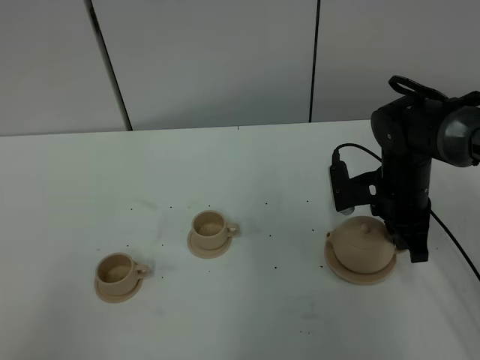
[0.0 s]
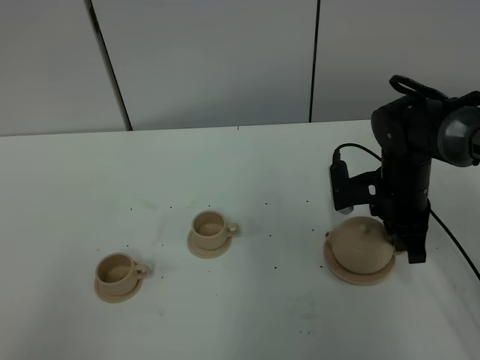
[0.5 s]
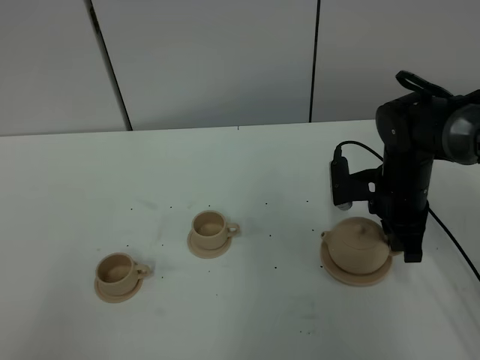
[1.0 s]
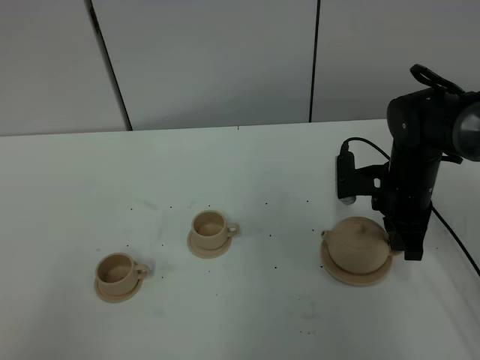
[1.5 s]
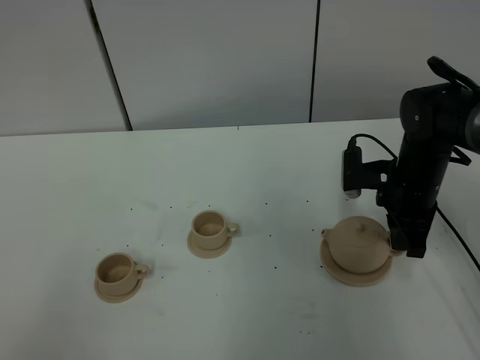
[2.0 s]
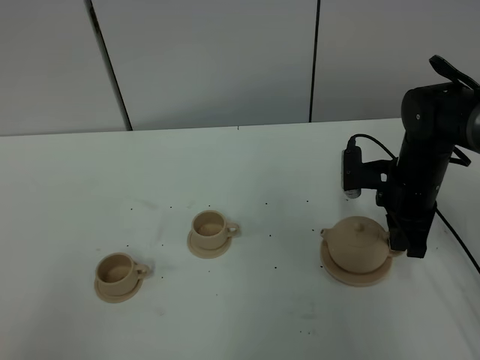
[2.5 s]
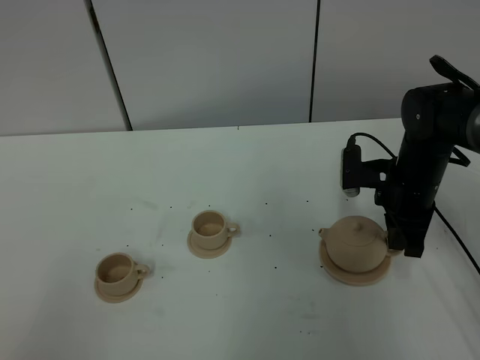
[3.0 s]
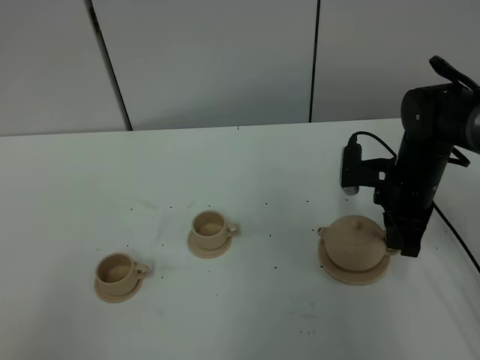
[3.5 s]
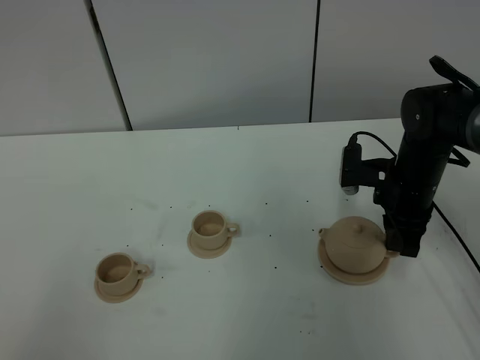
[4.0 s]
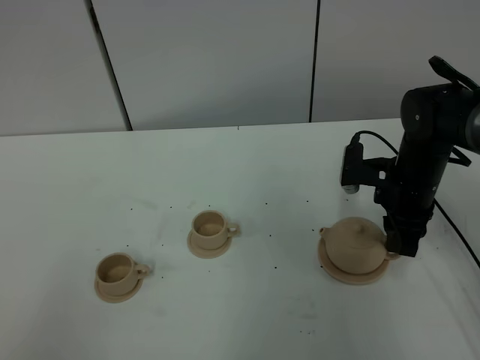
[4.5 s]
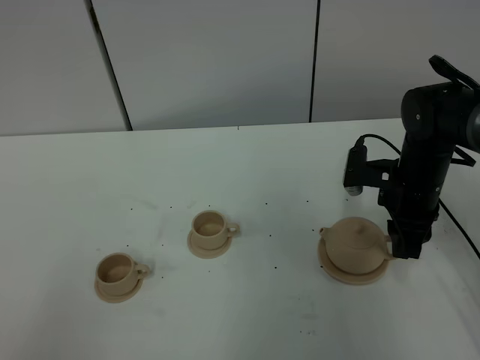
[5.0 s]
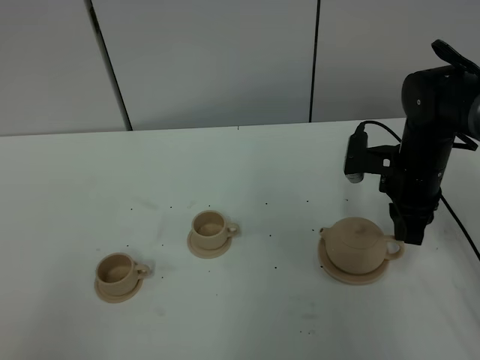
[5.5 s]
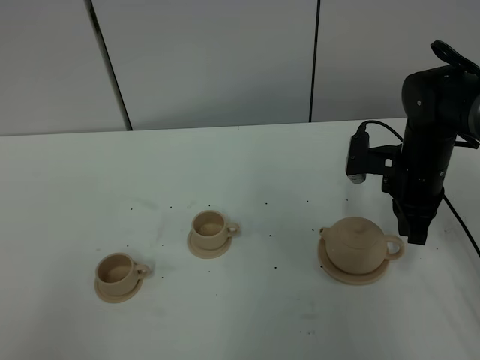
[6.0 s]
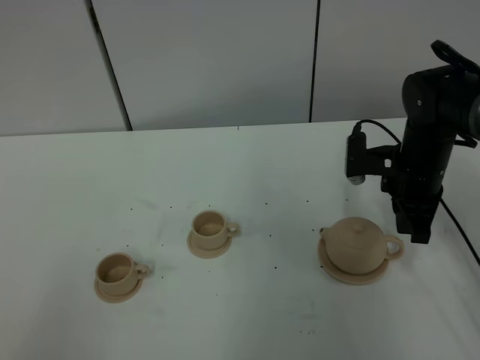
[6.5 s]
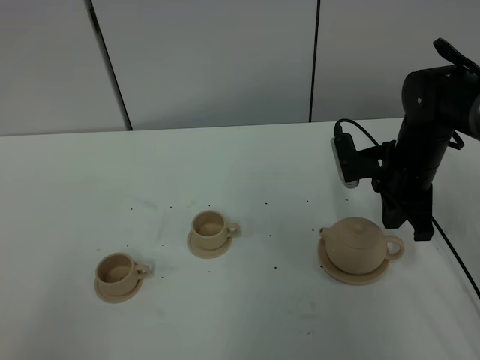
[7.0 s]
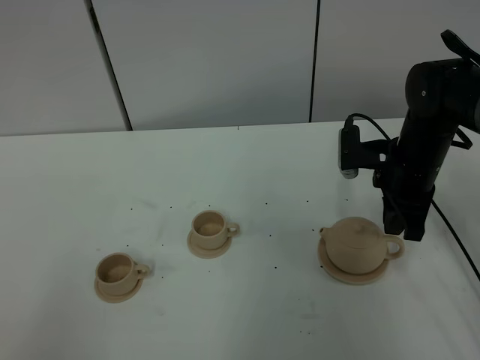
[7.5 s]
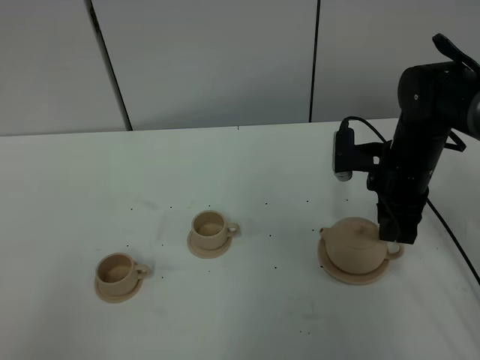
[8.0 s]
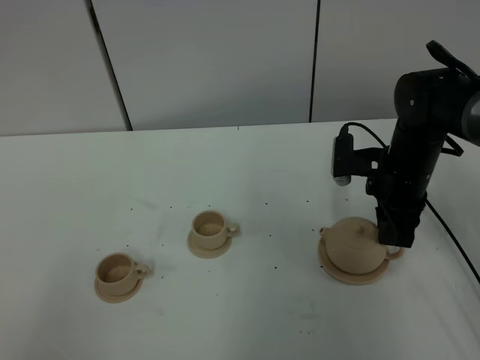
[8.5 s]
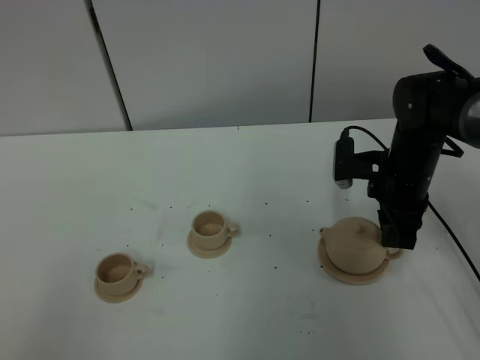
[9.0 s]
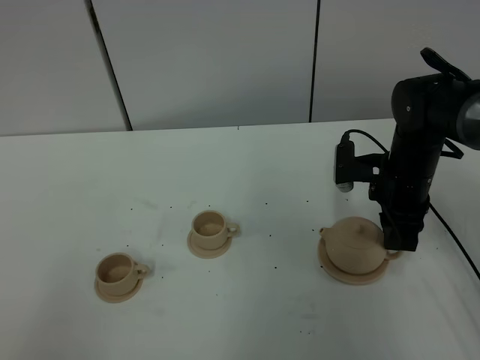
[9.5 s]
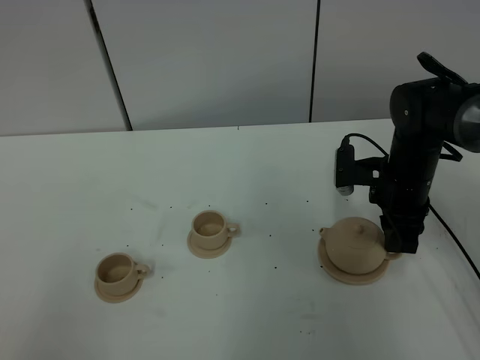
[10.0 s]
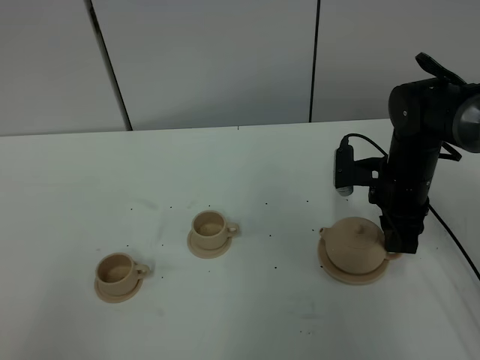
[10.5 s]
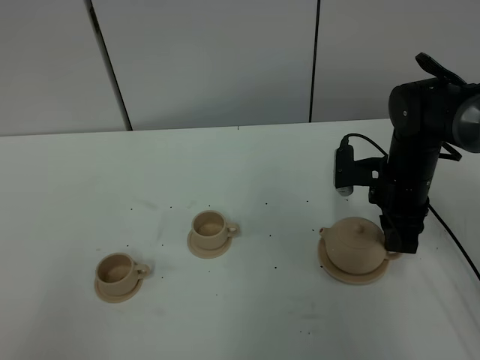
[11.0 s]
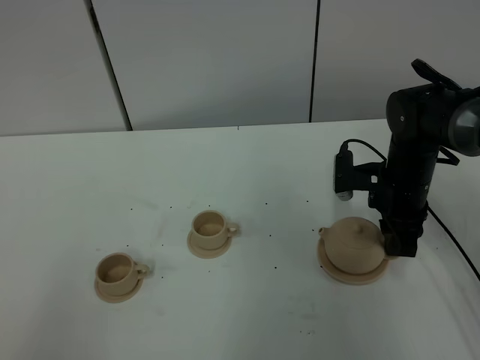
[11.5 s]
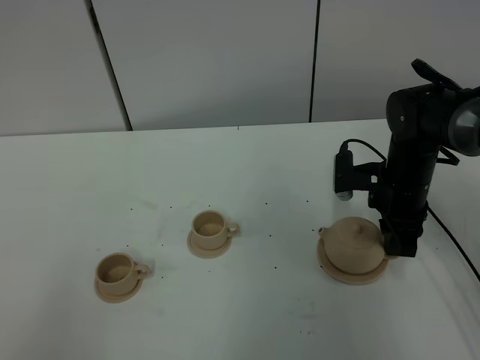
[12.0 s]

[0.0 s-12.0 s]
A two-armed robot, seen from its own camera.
Task of the whole recording: grasp the brown teapot and pour the tea into the two brown teacups one by one, put the brown teapot back in its original place.
0.0 to 2.0 s: The grippers make only small movements.
2.0 to 4.0 s: Both grippers stay about where they are.
4.0 to 6.0 s: The grippers move only a little.
6.0 to 8.0 s: The right gripper opens its fingers.
8.0 to 10.0 s: There are only small adjustments of the grippers.
10.0 to 12.0 s: Both grippers stay put.

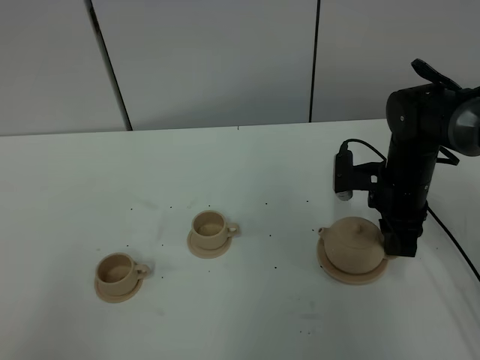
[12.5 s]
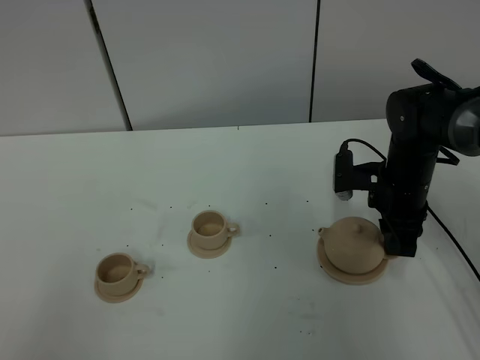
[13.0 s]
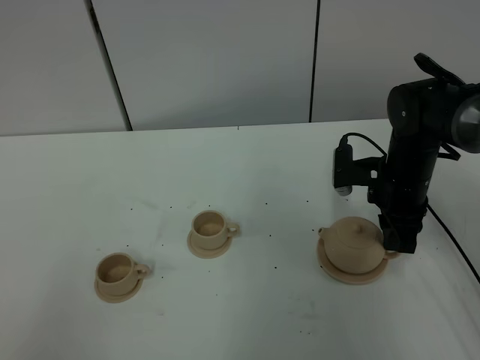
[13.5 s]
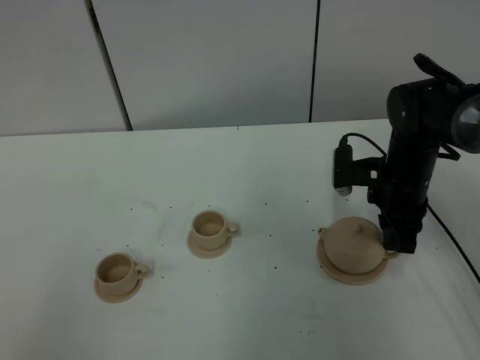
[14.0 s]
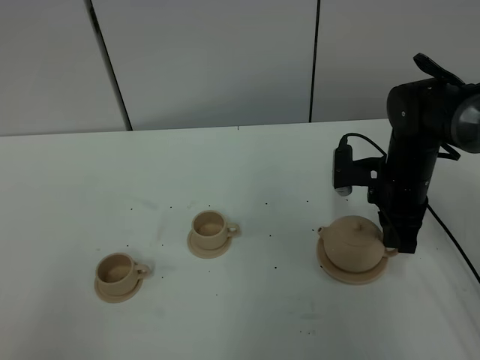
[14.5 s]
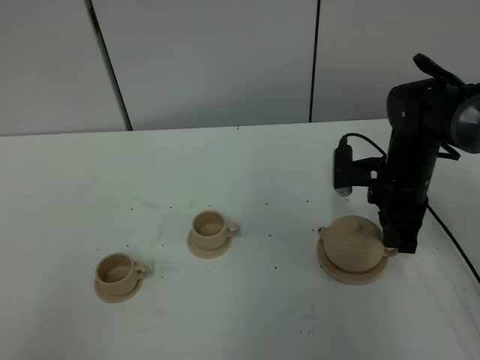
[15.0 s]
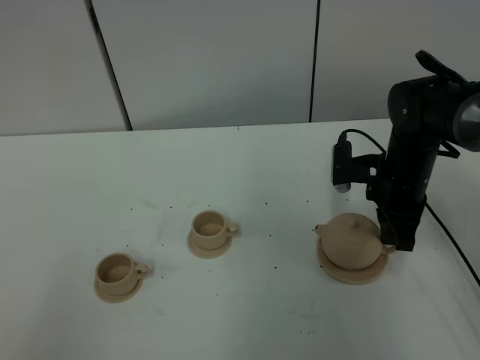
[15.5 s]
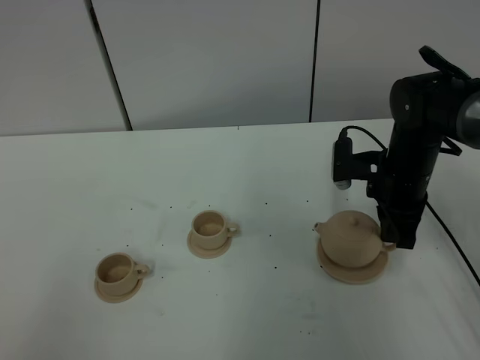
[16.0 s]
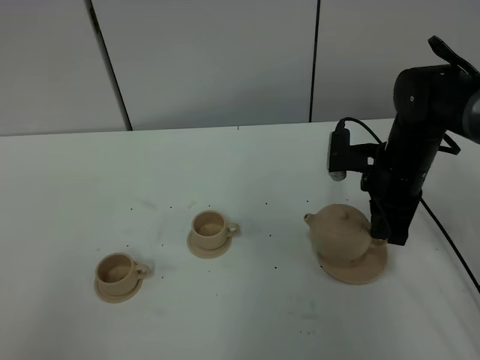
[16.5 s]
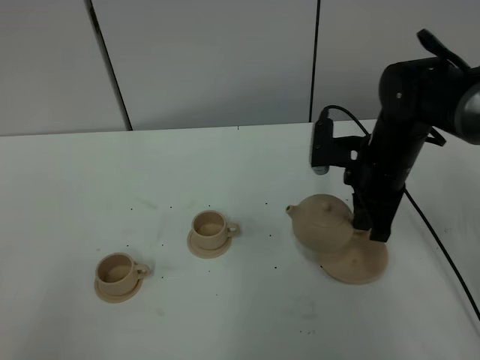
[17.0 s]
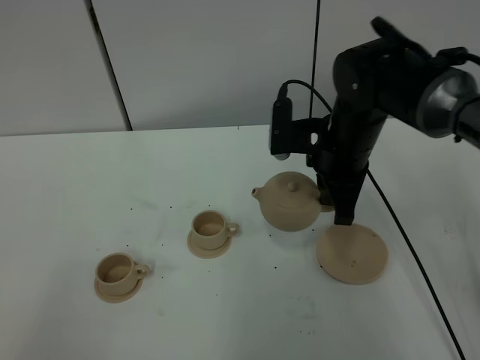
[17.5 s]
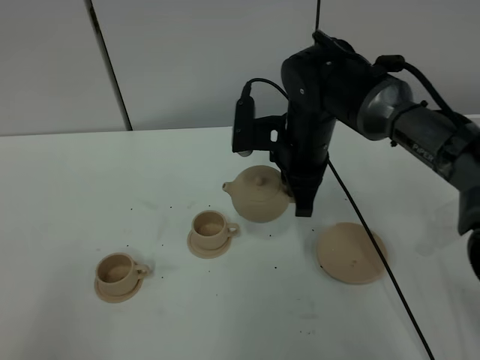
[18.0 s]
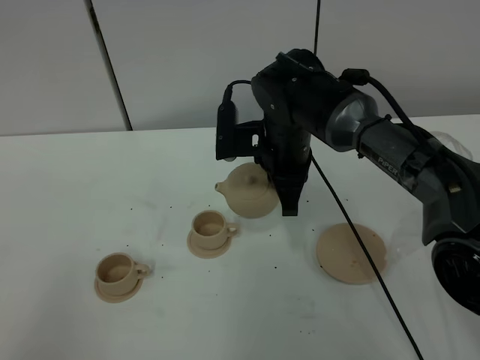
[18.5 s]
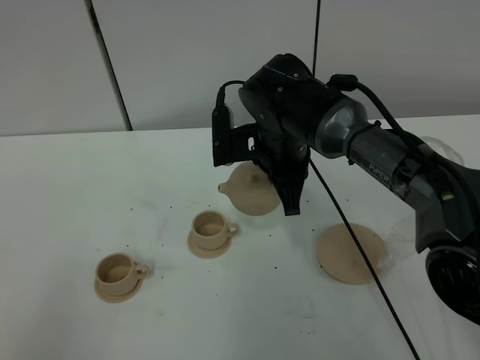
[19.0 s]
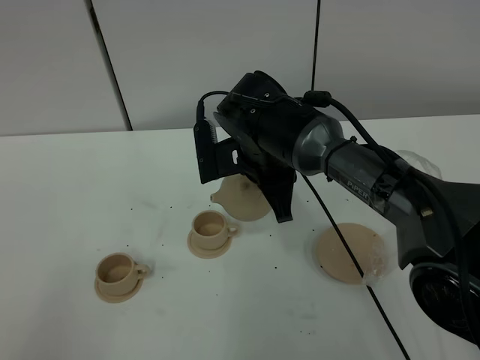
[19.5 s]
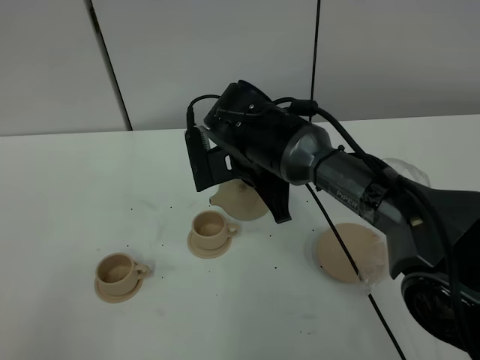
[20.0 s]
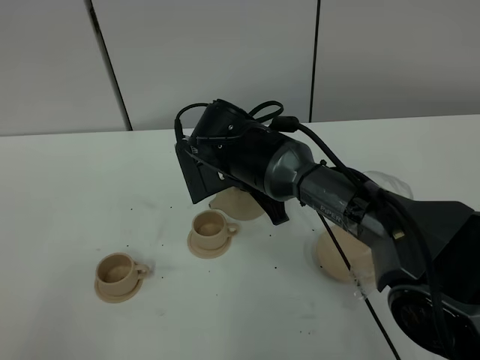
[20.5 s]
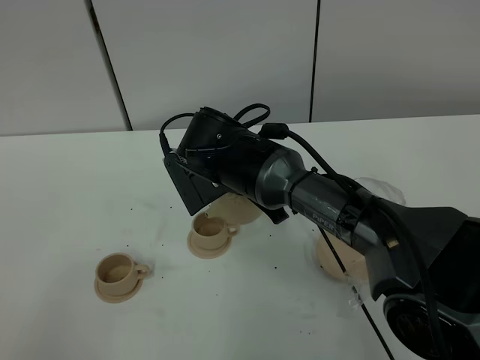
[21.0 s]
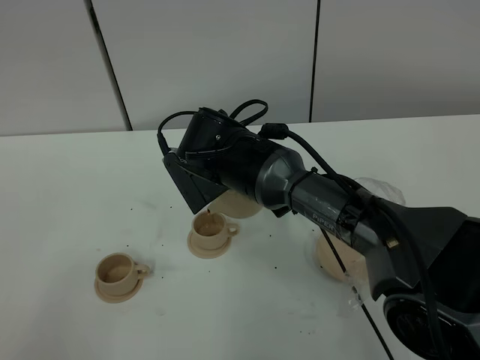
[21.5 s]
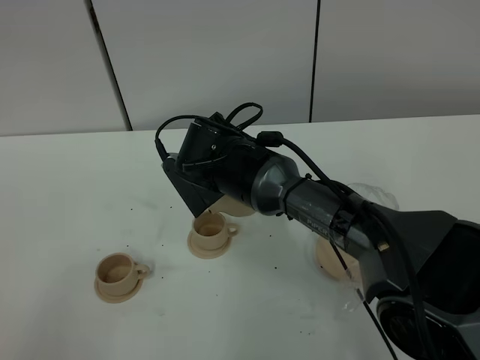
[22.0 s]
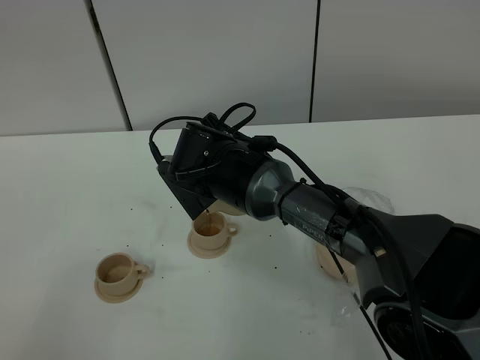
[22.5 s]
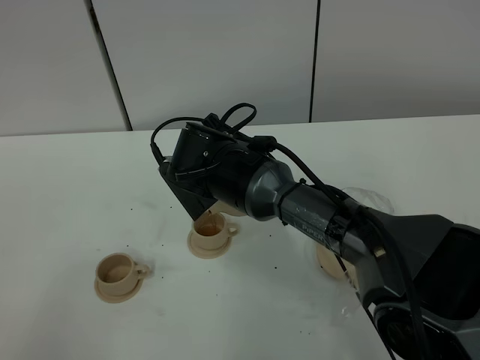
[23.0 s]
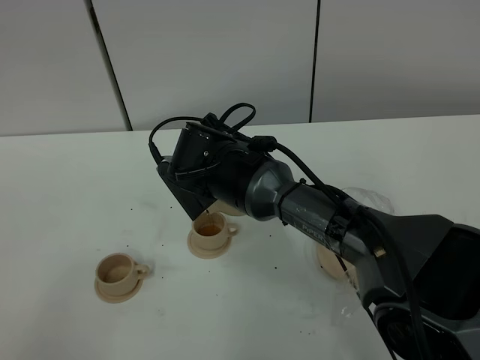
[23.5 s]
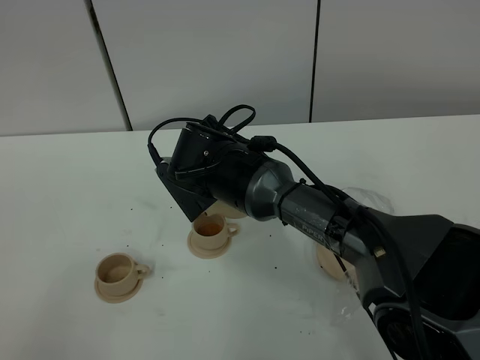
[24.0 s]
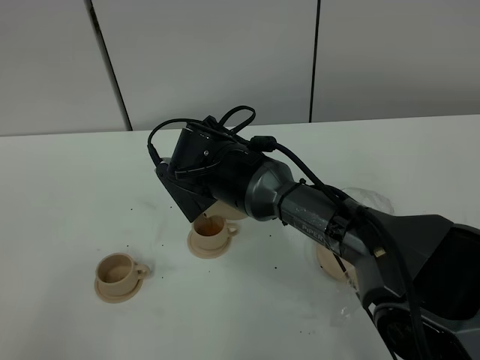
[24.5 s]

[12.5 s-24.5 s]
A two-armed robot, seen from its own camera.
Task of the whole recording: grasp the brown teapot and pour the tea into the two brown teacups one by one, put the brown teapot back in its original place.
Step, 12.5 to 16.0 s: Pick up the teapot with the right gripper.
12.5 to 14.5 s: The two grippers keep their place.
14.5 to 16.5 s: The grippers stay close to where they were, moving slightly.
16.5 to 18.5 s: The right gripper goes approximately 15 cm to the left.
18.5 to 20.5 s: The right gripper shifts roughly 5 cm to the left.
20.5 to 22.5 s: The grippers make only small movements.
22.5 to 24.5 s: The two grippers keep their place.

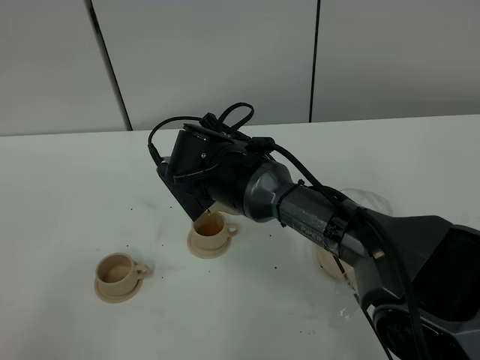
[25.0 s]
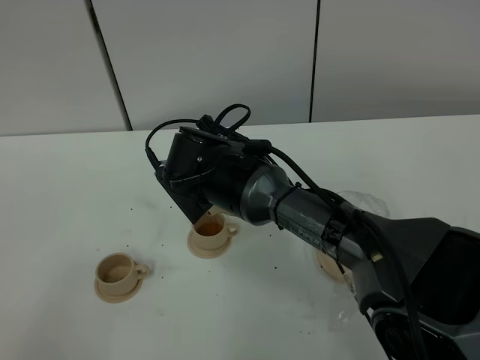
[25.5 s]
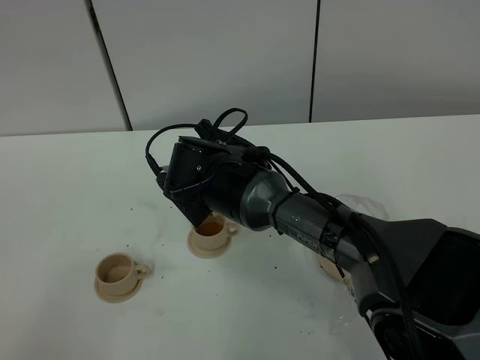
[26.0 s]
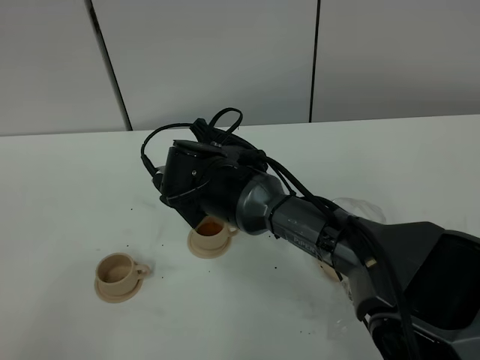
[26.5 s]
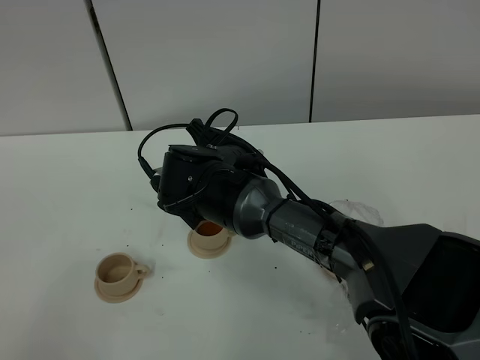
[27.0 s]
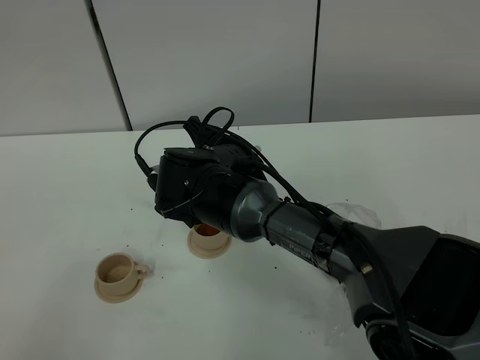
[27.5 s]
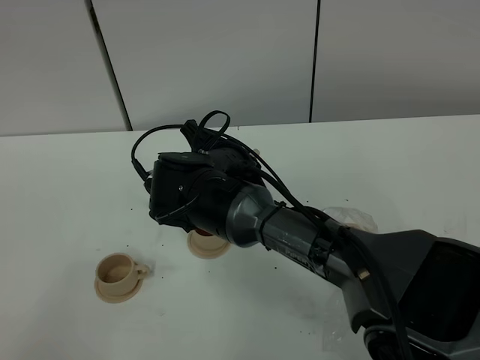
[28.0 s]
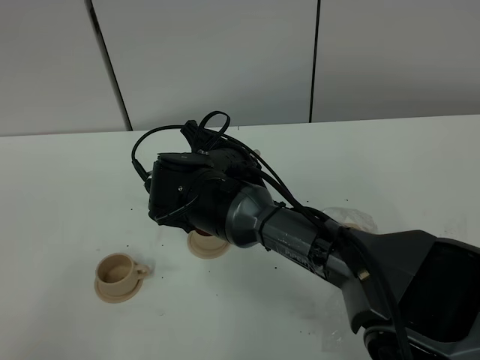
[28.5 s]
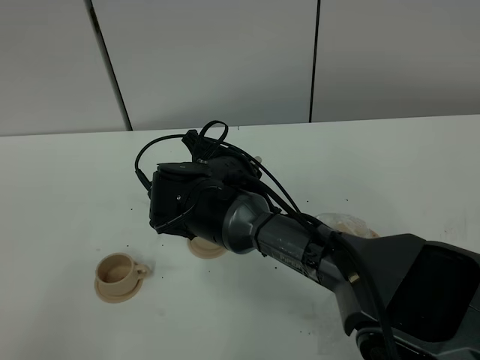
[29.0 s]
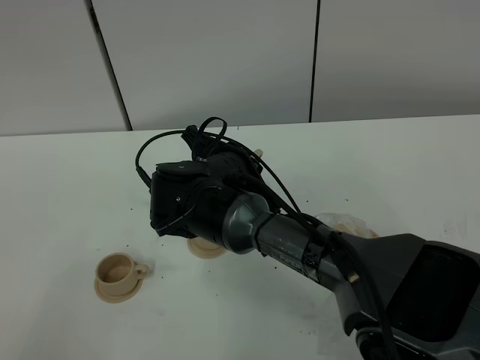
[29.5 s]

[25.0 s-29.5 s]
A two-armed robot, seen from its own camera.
Task of the whole recording: grasp the brown teapot and pour the tea into the two brown teacups one by one, put the brown teapot back in its original place.
25.0 to 29.5 s: There are only small adjustments of the grippers.
